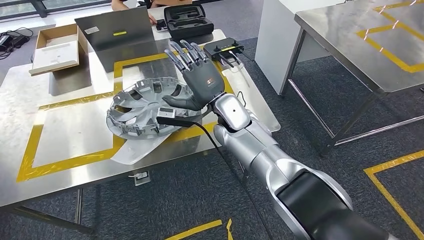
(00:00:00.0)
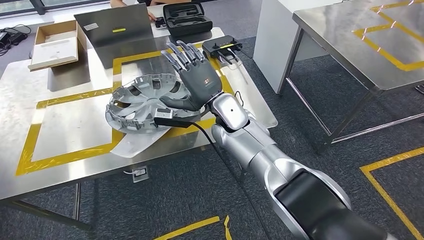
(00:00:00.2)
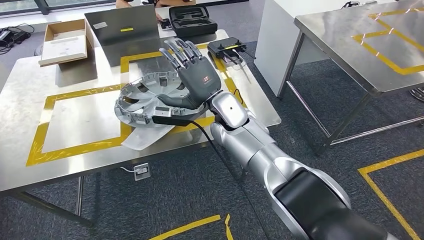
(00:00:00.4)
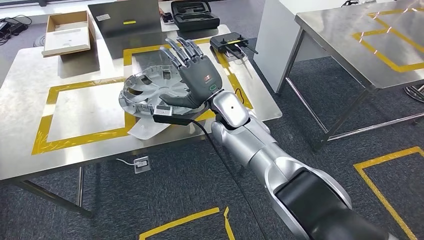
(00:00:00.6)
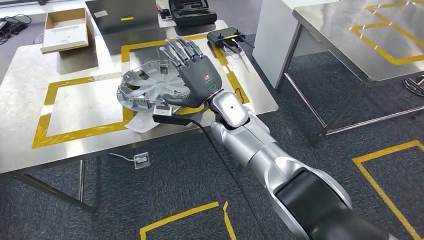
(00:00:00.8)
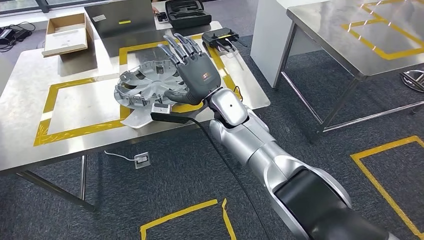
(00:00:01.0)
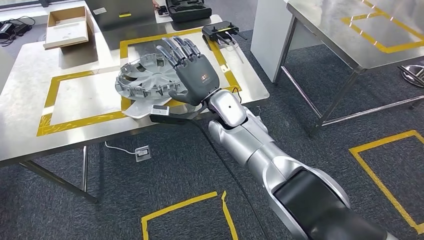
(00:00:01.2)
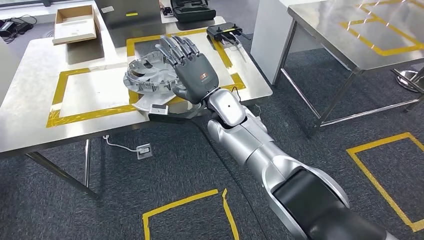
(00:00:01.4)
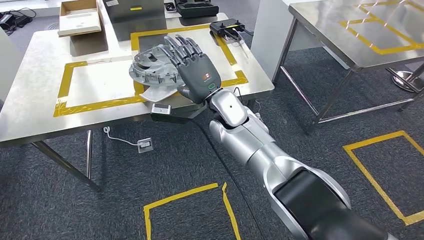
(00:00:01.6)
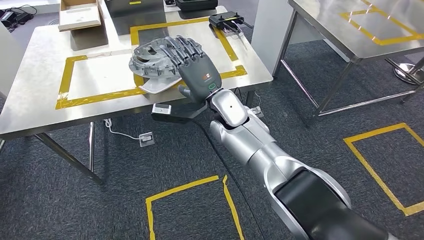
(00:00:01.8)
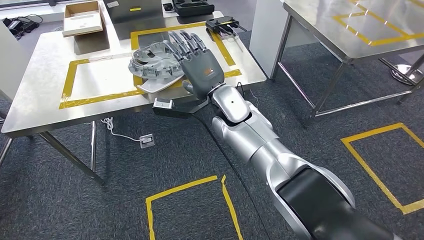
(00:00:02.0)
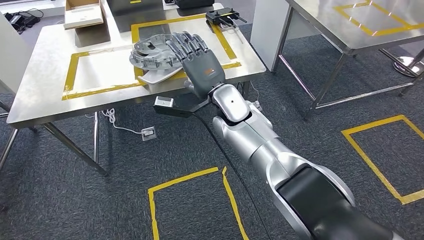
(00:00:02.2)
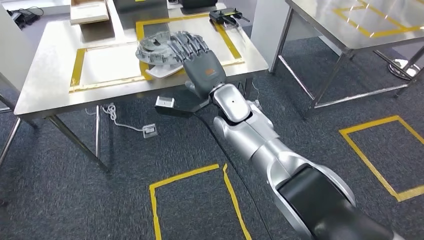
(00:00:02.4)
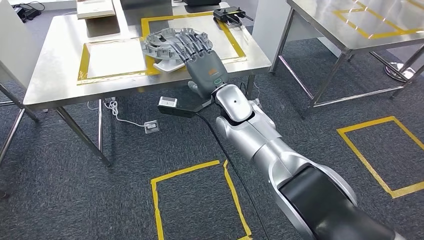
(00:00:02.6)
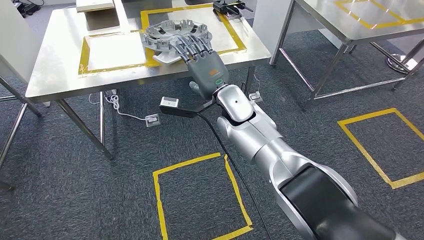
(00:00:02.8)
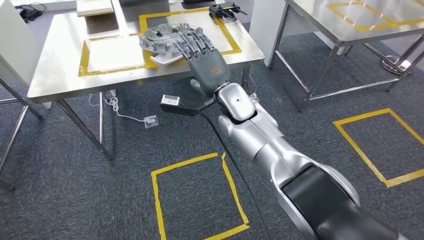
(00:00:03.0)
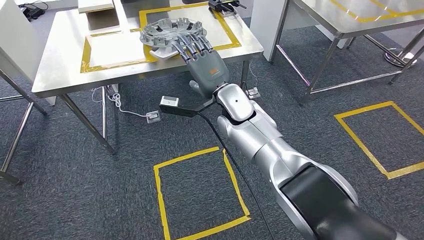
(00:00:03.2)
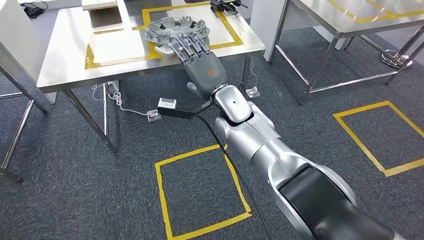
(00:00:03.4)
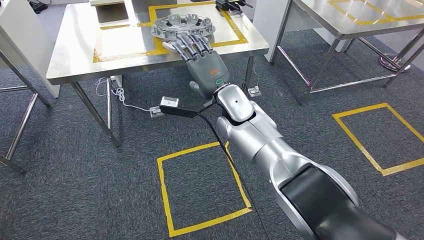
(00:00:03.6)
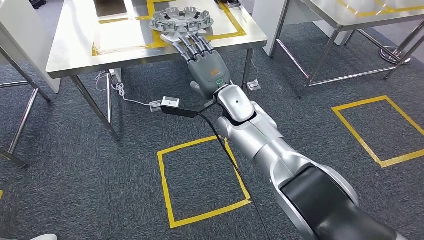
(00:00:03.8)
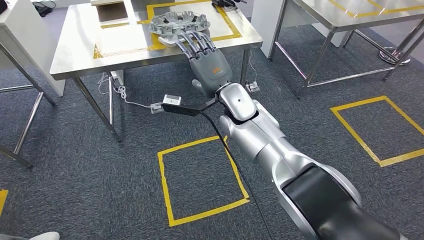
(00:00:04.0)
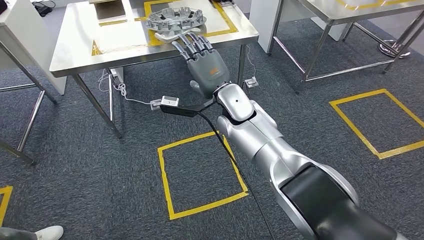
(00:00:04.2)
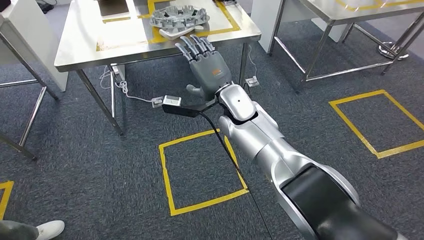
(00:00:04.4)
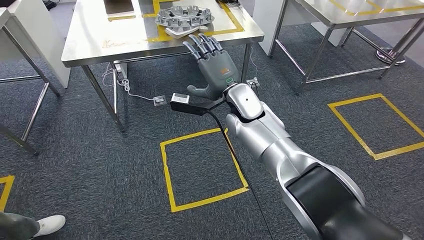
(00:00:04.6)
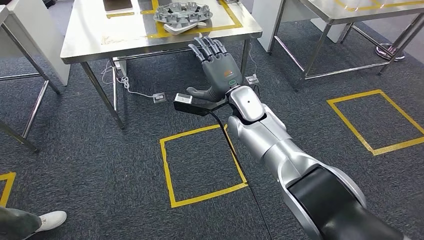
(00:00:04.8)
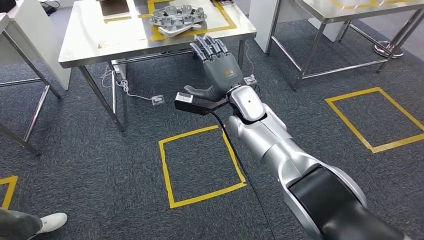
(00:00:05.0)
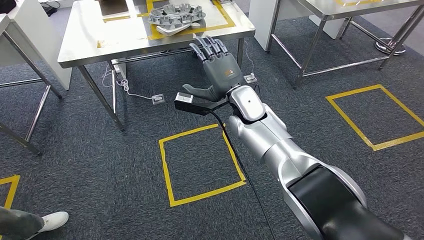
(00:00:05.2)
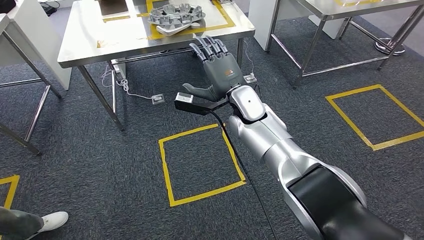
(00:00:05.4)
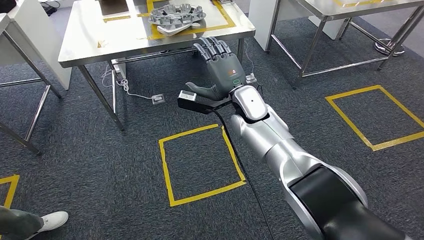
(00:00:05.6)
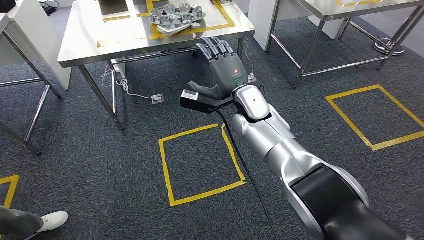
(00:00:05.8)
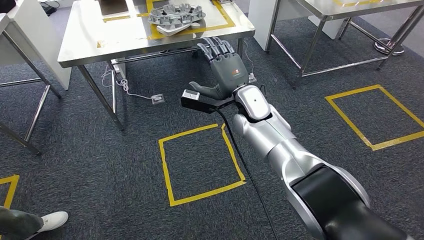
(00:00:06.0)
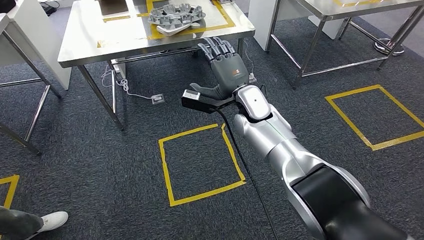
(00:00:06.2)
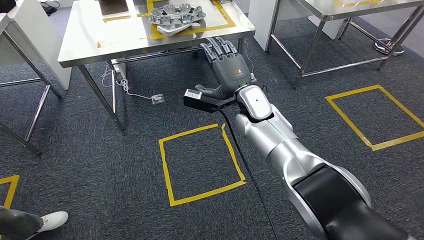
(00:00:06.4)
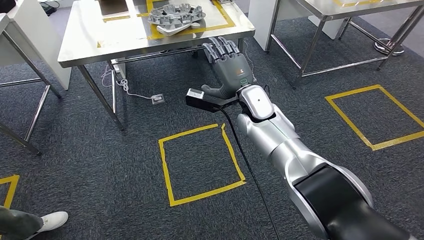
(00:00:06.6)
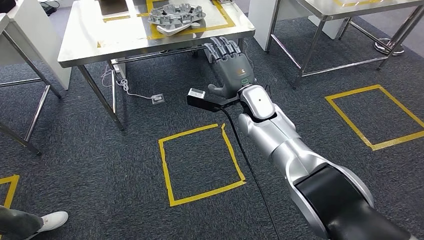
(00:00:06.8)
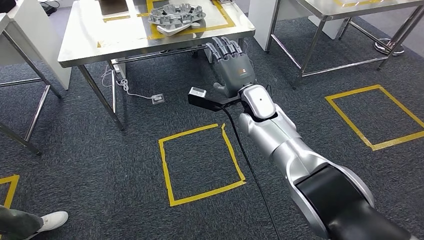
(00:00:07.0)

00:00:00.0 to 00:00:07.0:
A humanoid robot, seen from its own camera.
Step, 00:00:00.6 to 00:00:07.0: Return to the initial position at the workbench.
00:00:05.6 to 00:00:07.0: There are only small adjustments of the hands.
